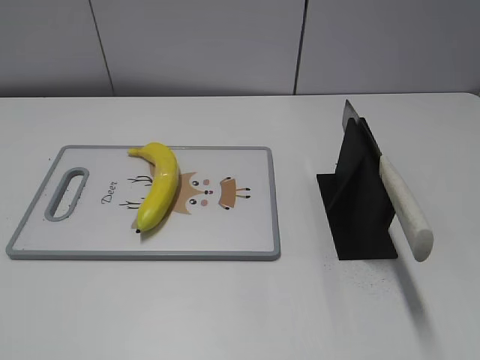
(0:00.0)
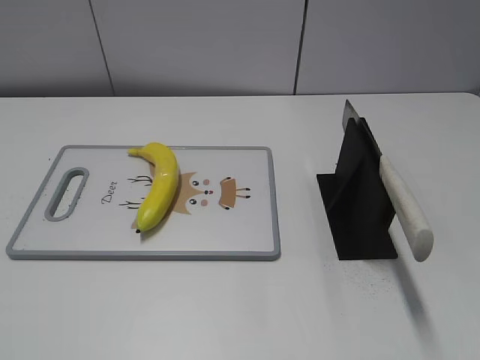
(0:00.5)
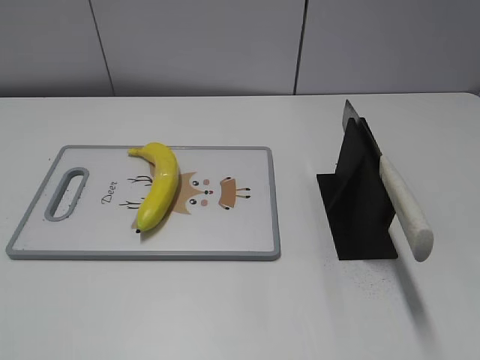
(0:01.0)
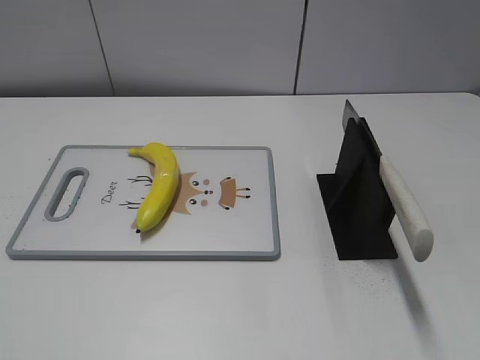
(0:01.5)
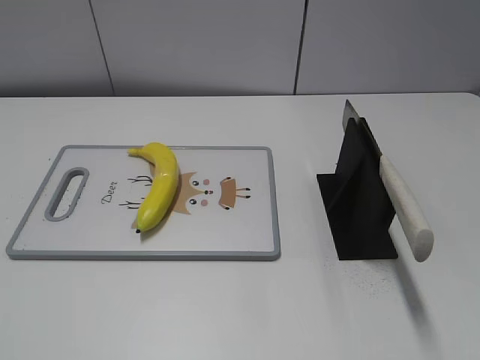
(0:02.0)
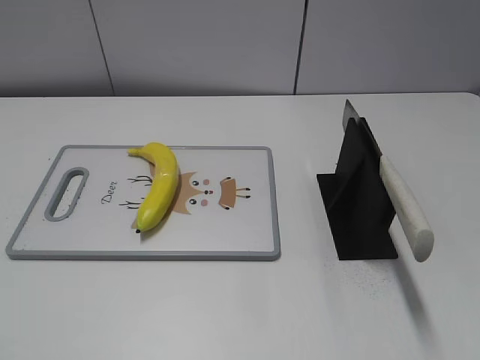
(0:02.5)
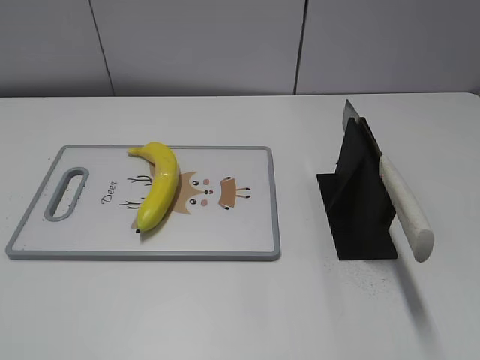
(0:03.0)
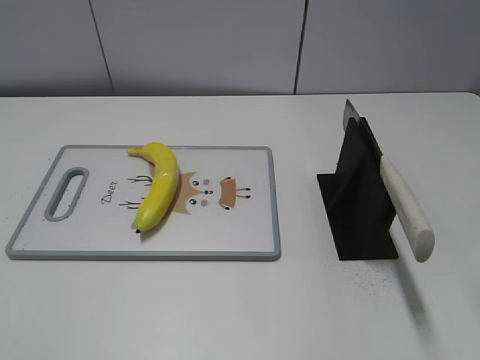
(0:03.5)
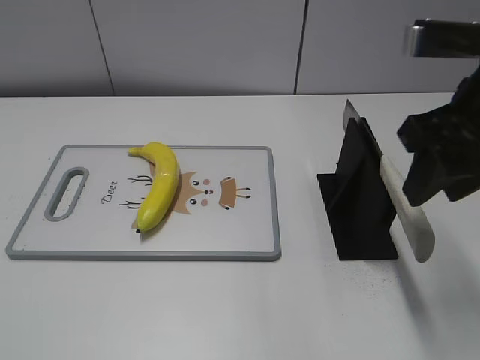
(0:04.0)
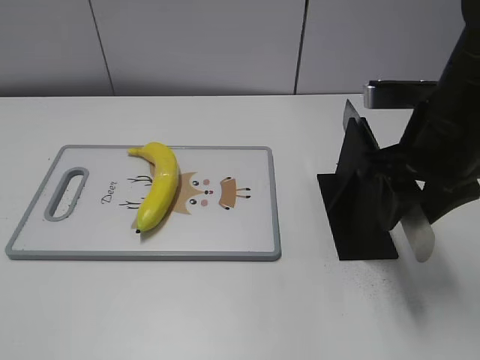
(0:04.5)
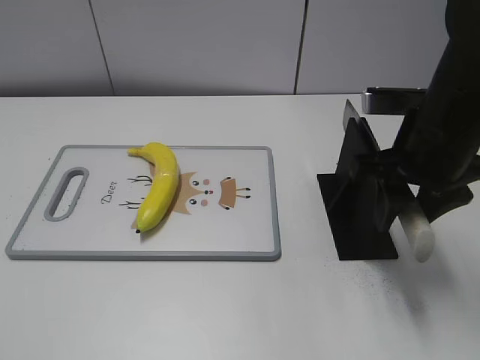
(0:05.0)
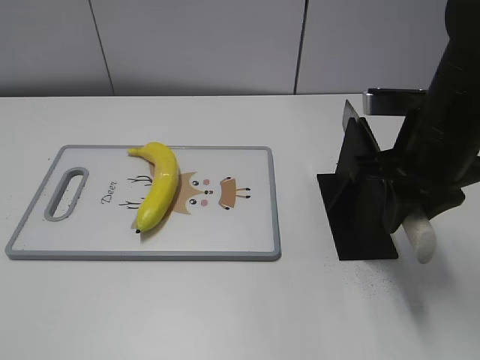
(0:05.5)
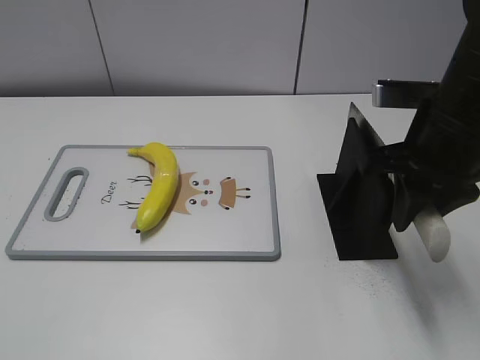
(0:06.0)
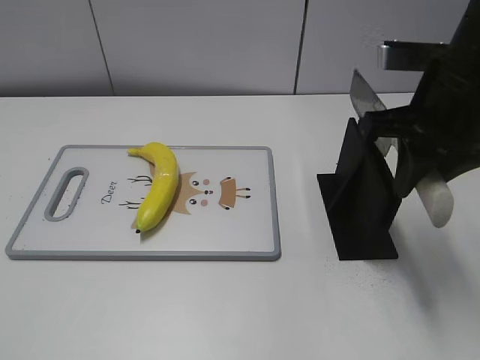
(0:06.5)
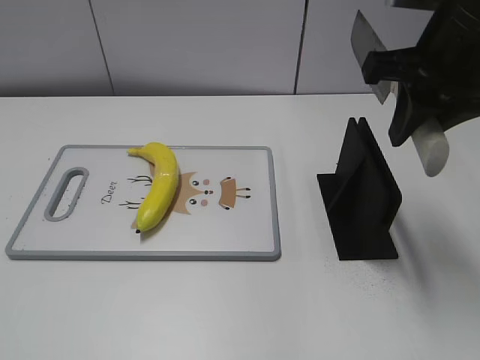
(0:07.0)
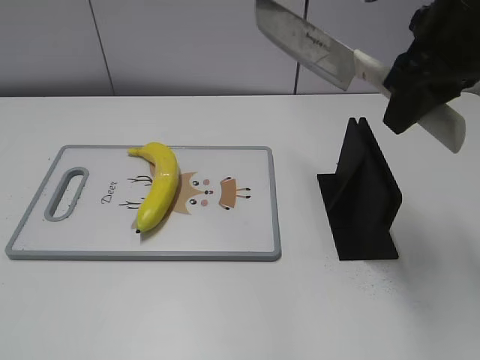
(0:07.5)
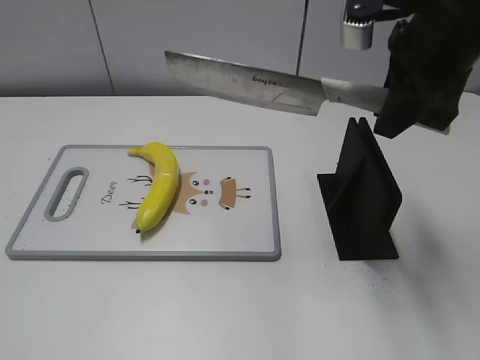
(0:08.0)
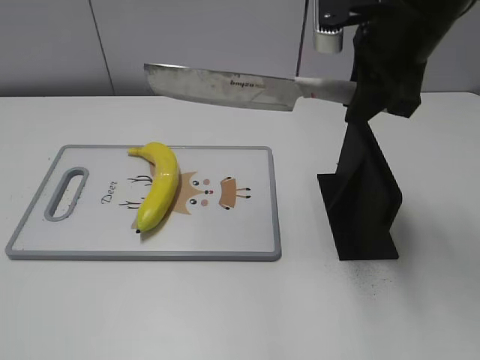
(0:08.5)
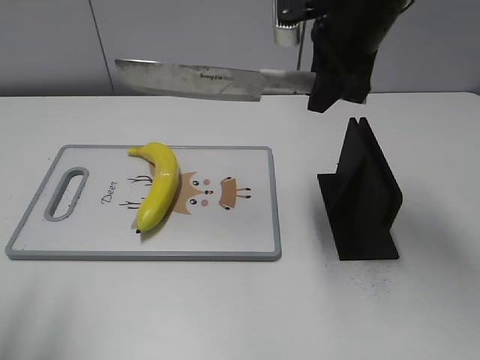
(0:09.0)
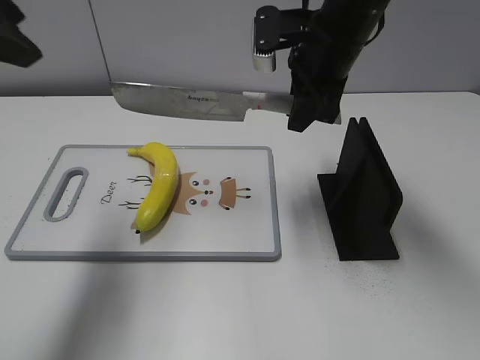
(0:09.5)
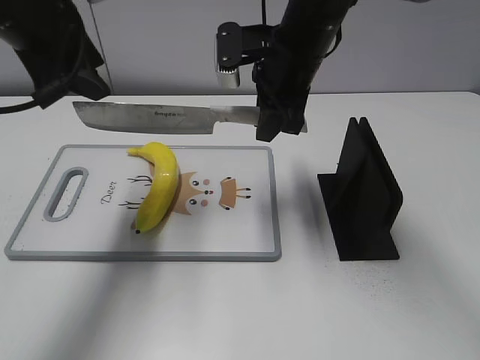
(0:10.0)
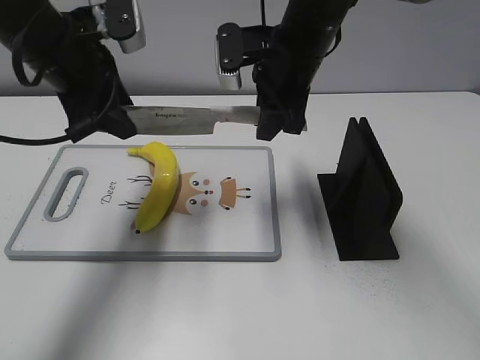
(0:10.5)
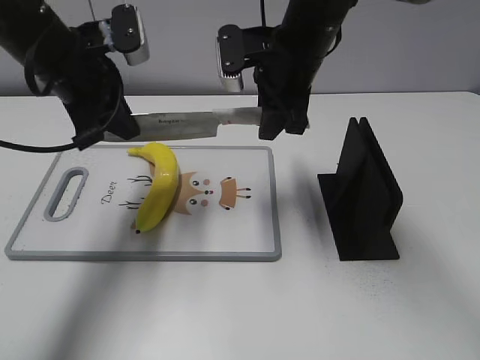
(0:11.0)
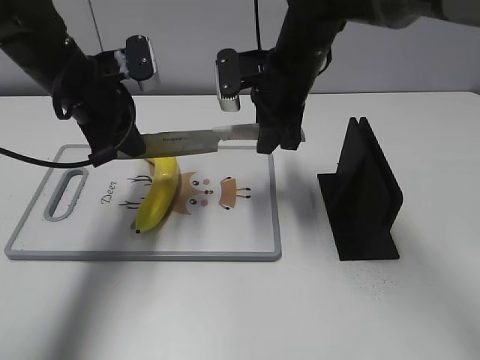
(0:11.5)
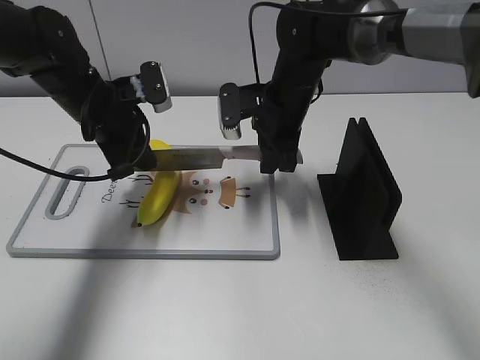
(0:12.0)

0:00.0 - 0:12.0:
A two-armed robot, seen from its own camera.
Task of the whole recording: cut plastic banana.
Step, 0:00.0 - 0:06.5: Grab the knife handle with your right hand.
0:02.0 - 0:04.0: The right gripper travels forward by some 25 cm, and closes.
0:04.0 - 0:06.0: The right gripper goes some 5 cm downward, and closes.
0:06.0 - 0:08.0: The right gripper travels upward by roughly 10 cm.
0:08.0 - 0:10.0: The left gripper moves forward, about 35 cm. Meanwhile the right gripper travels to the left, forward and downward by approximately 15 cm.
0:10.0 - 0:12.0: The right gripper shifts approximately 10 cm downward; the left gripper shifts some 15 cm downward, and closes.

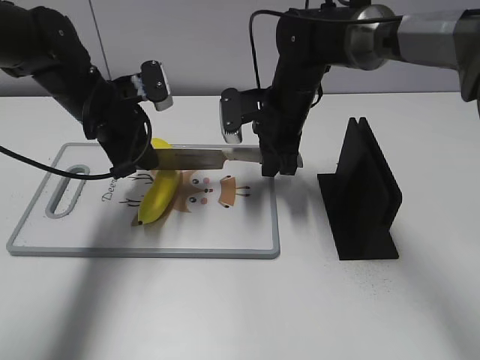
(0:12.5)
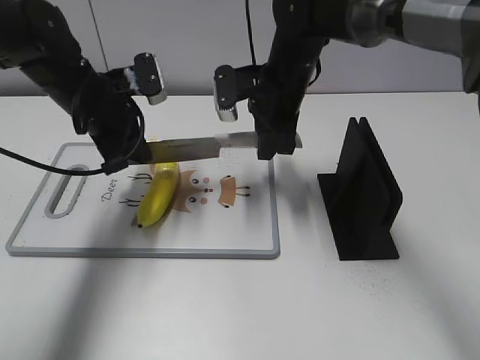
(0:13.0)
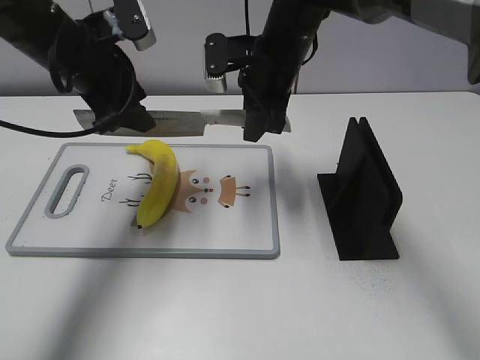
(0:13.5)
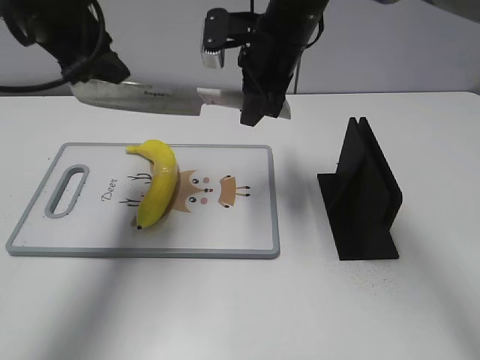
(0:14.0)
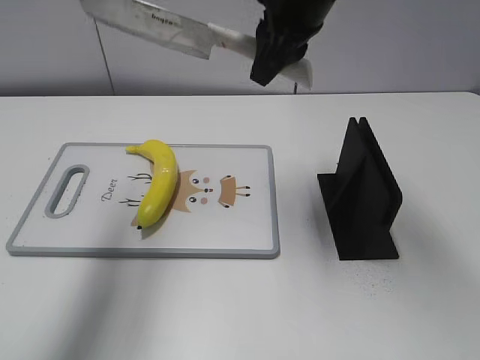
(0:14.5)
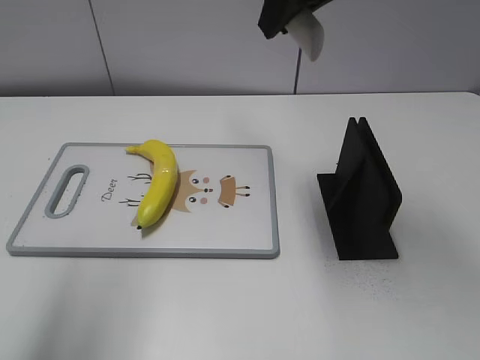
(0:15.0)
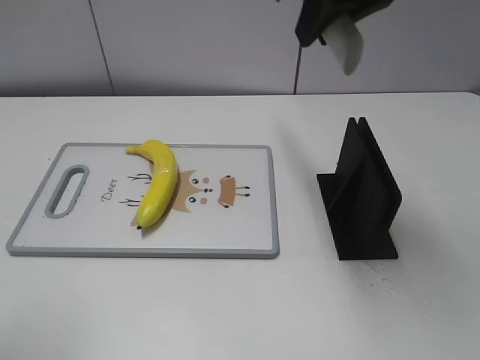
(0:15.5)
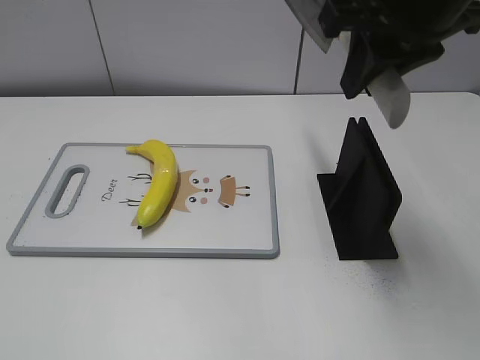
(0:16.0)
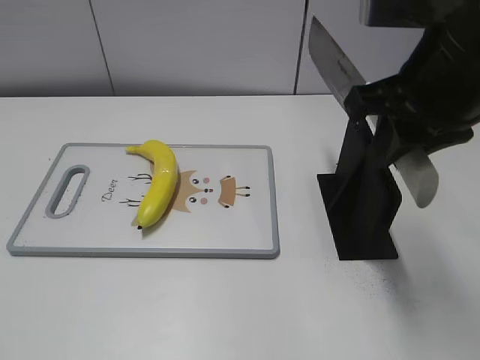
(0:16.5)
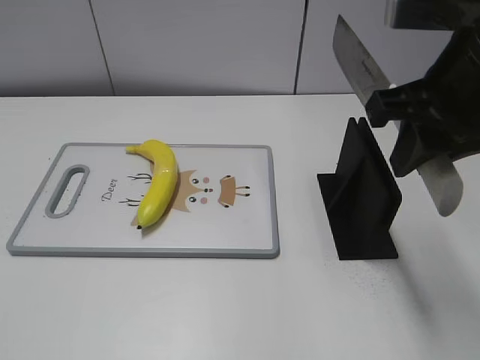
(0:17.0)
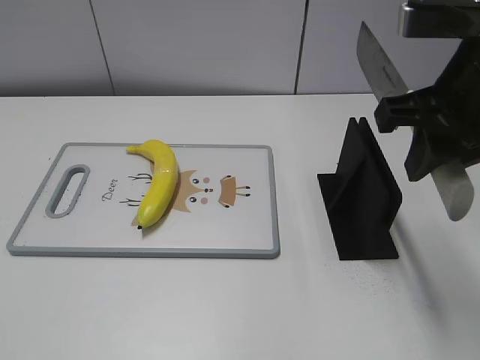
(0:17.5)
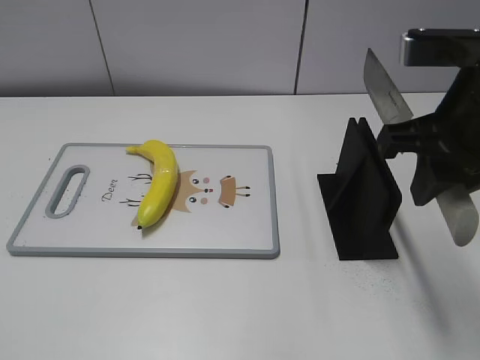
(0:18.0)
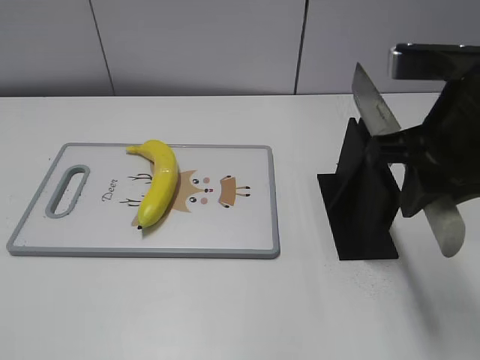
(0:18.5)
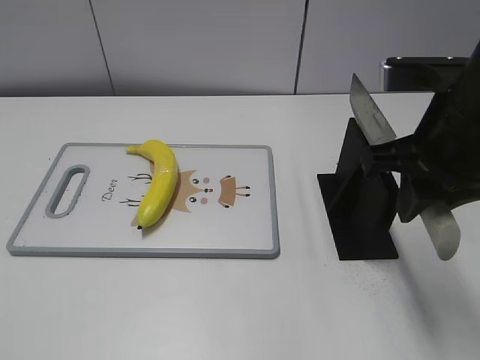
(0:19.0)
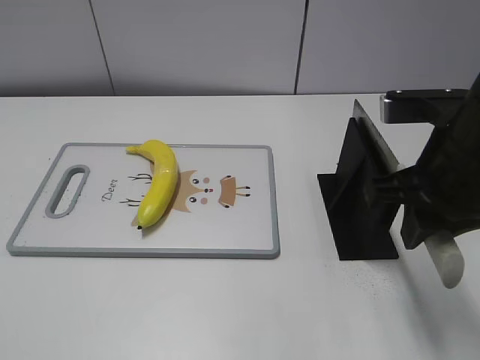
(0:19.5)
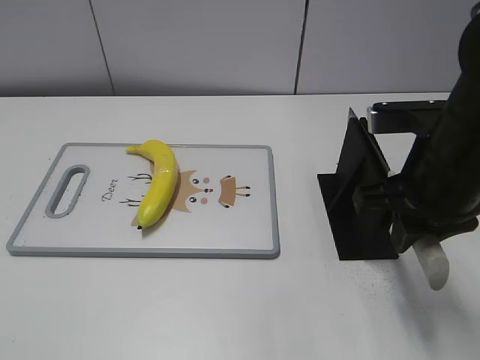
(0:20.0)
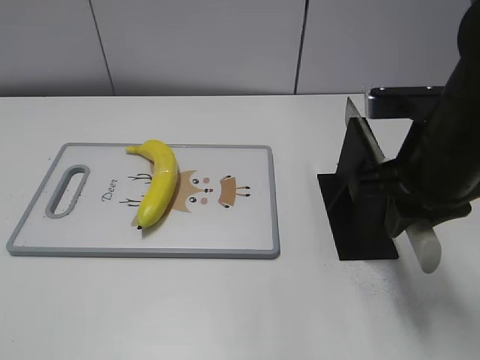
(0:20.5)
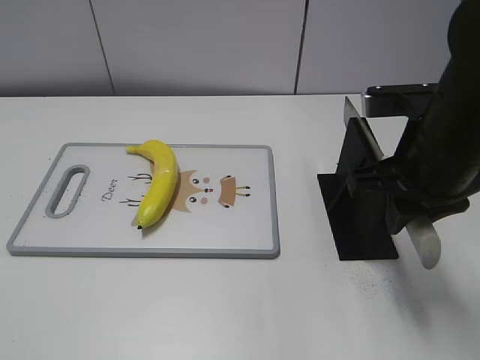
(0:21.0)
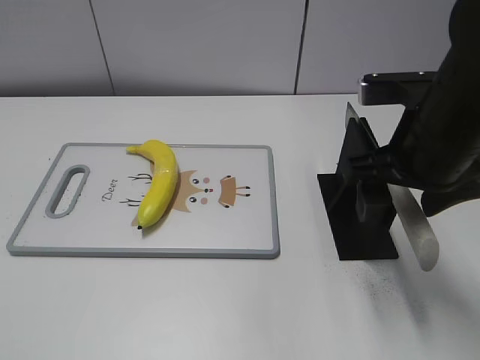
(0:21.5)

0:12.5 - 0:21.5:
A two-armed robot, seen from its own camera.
Task of the whole recording: cut plastic banana.
Step, 0:14.0 - 0:15.5: Cut the banana with your right hand.
0:12.5 - 0:14.5: The left gripper moves upward and backward, about 30 cm, and opens. The right gripper travels upward by about 20 cm.
0:14.5 - 0:17.0: The right gripper moves backward and to the right, approximately 20 cm, while the left gripper heads backward and downward, covering some 30 cm.
0:17.0 - 0:19.5: The right gripper travels downward by approximately 5 cm.
0:19.5 - 0:21.5: The right gripper opens.

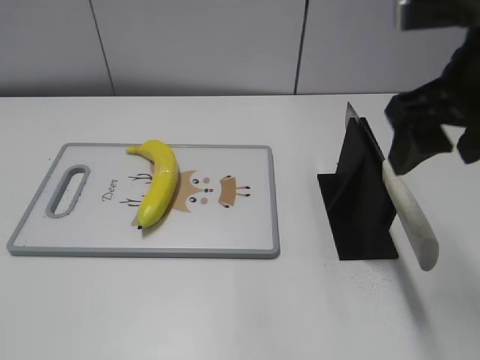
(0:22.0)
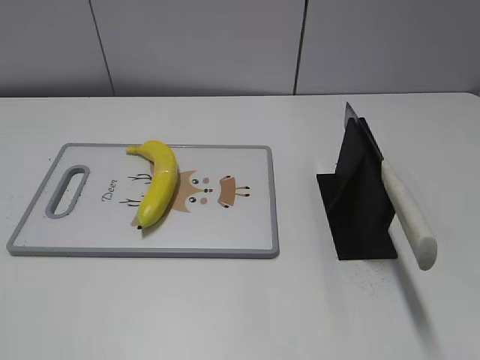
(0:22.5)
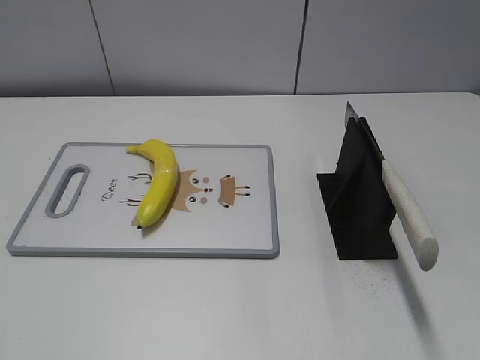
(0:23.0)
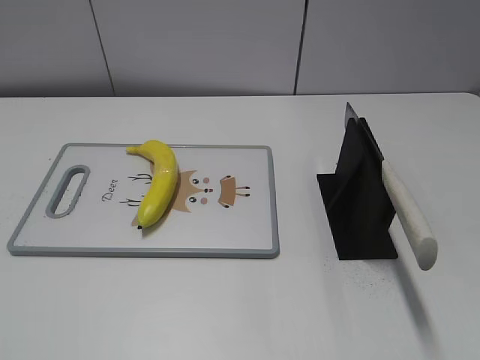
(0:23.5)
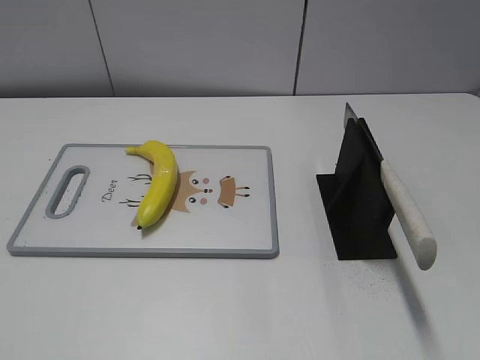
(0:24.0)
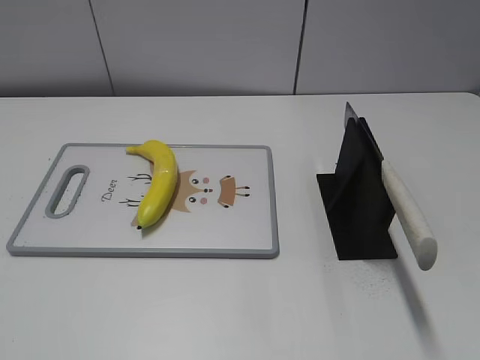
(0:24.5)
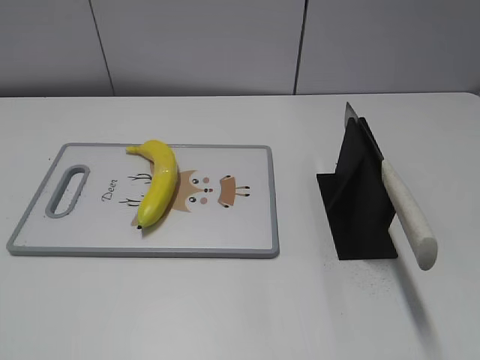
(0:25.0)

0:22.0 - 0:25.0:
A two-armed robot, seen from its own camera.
Task of the whole recording: cut plastic banana.
Step, 0:22.0 - 0:25.0: Place the knife on the storage rack with your right hand.
0:22.0 - 0:23.5: The right gripper goes about 25 cm backward and to the right.

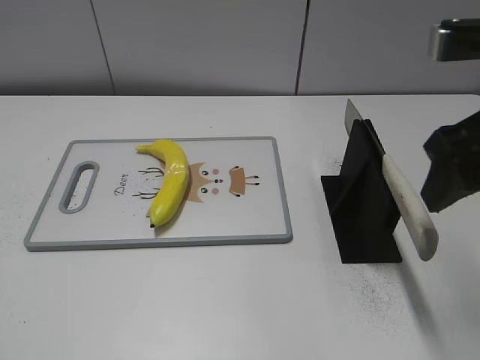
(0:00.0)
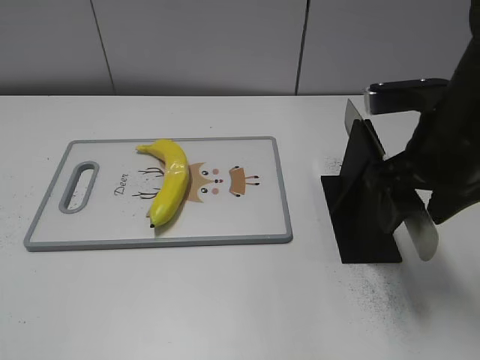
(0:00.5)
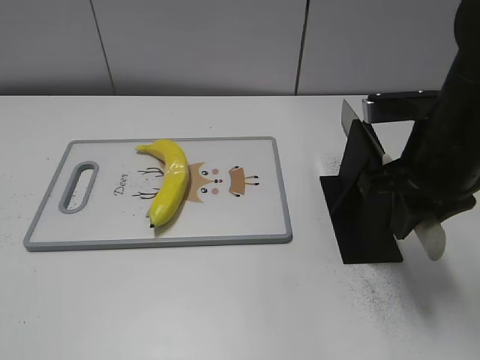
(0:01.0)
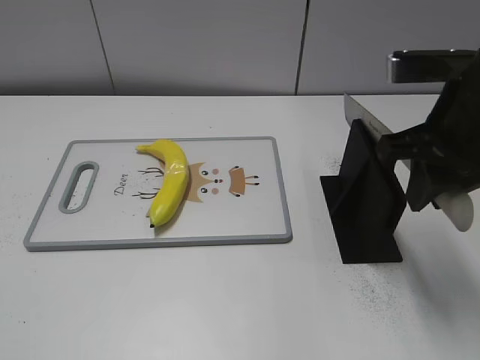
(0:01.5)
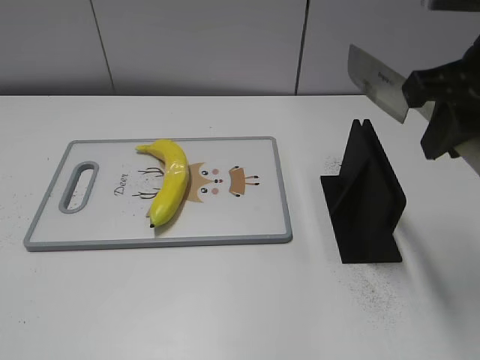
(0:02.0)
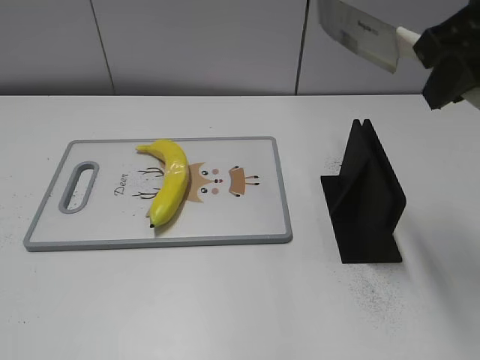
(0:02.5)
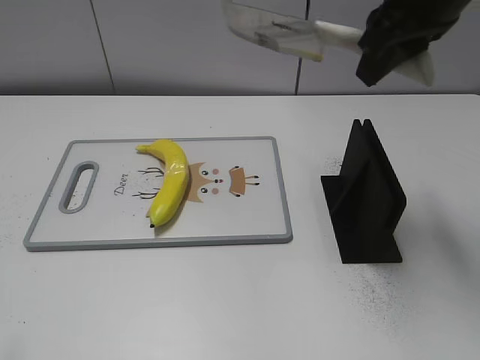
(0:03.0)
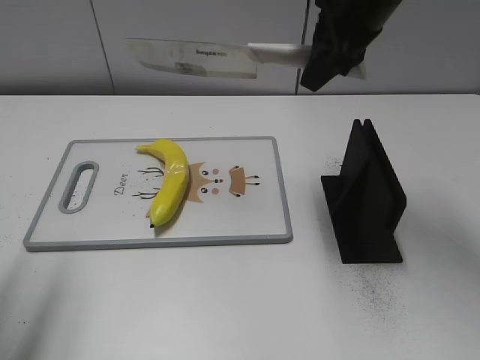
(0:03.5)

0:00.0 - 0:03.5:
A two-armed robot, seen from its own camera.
Task of the whole recording: cut plastic banana.
Step, 0:00.0 - 0:02.0: Grab the knife handle with your right hand.
0:00.0 - 0:02.0: The right gripper reaches roughly 10 cm downward, then returns, and closes.
0:02.0 - 0:03.5: The right gripper moves forward and to the left, roughly 15 cm. Meanwhile the left gripper heads forward, covering roughly 20 cm.
